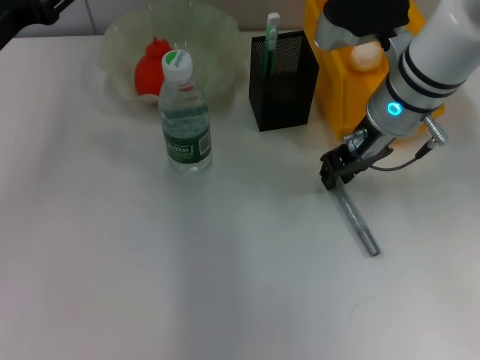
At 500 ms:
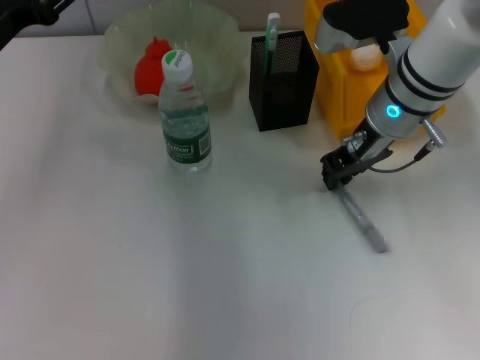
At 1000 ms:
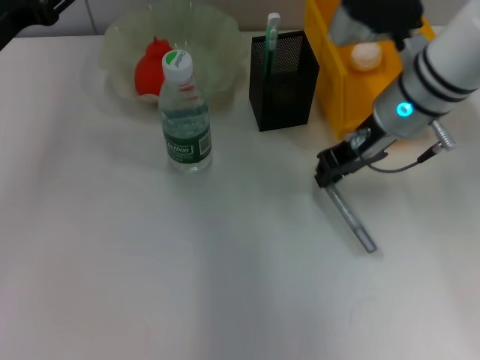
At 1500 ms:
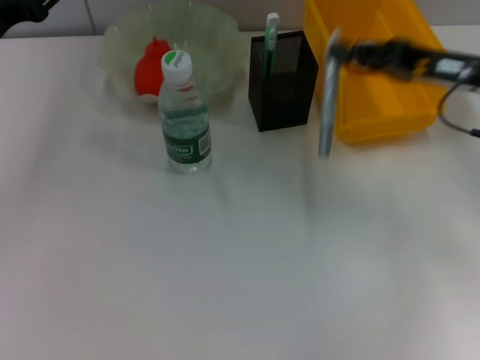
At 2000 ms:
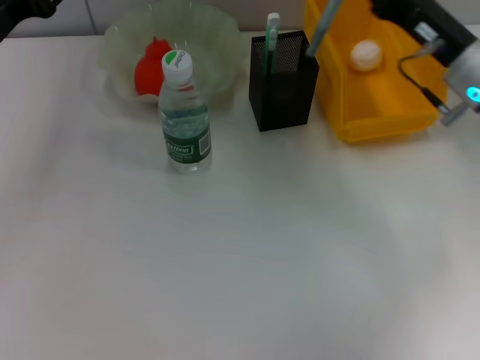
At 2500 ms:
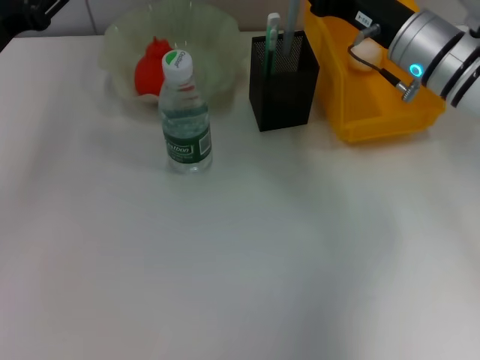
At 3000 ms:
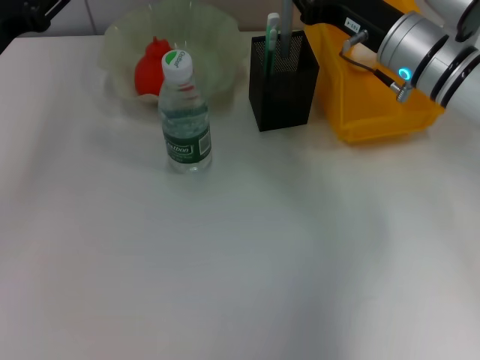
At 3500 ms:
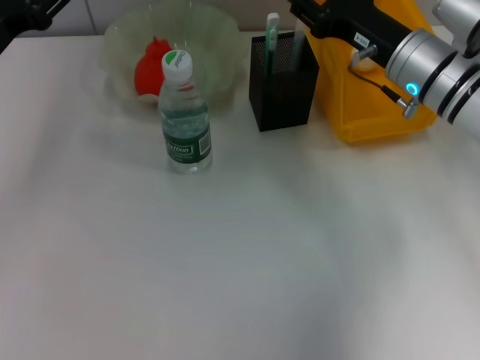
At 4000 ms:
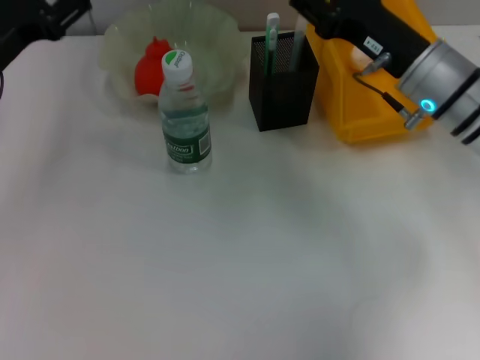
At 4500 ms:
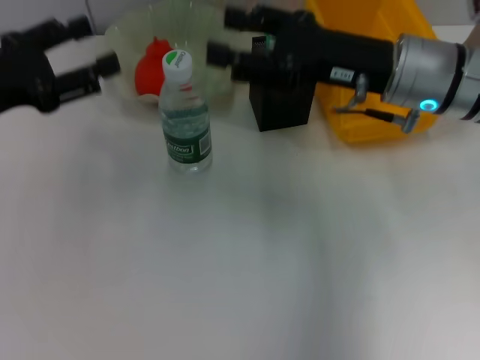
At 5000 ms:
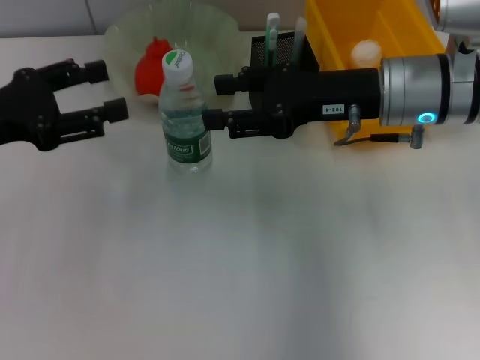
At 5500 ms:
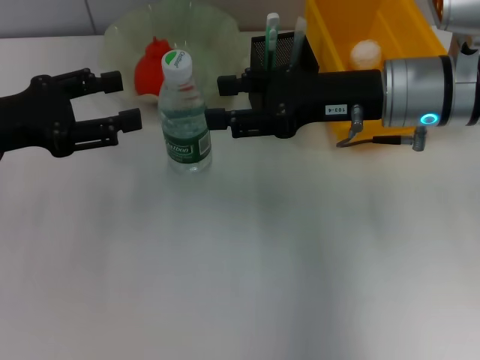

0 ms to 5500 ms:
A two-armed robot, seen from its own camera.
Step, 1000 ms to 3000 ms: Place the gray glue into the pen holder with the right hand.
0 ms to 2000 ms: The right gripper moves to the right, approximately 10 cm.
2000 ms to 3500 ms: The grippers stay close to where they were, moving slightly.
3500 ms to 5500 ms: The right gripper changes place by approximately 5 cm, and opens.

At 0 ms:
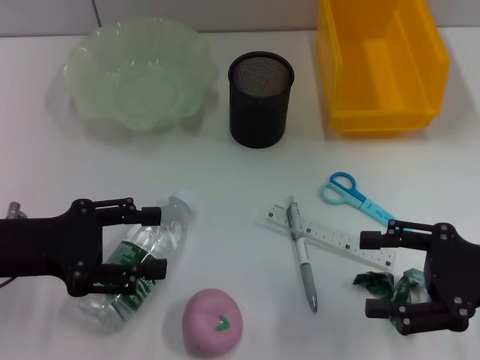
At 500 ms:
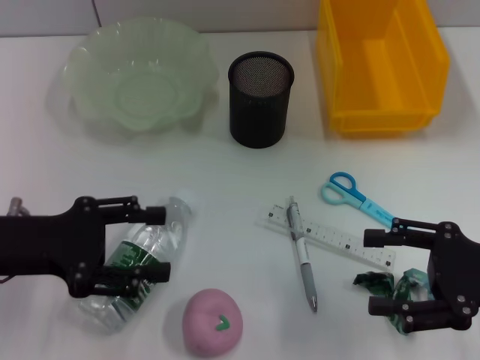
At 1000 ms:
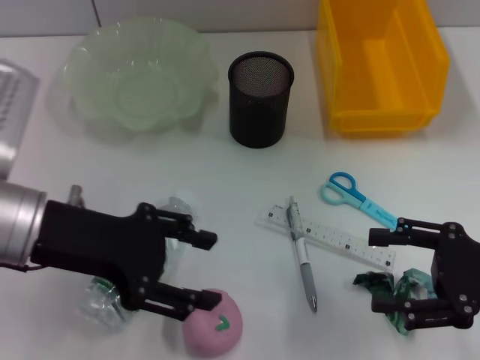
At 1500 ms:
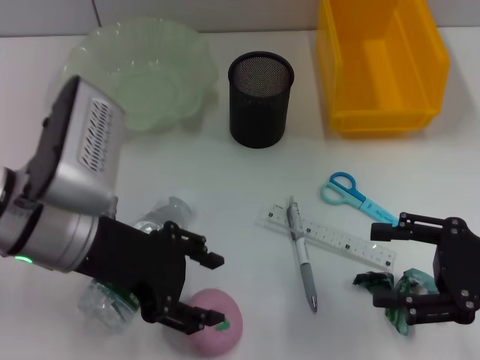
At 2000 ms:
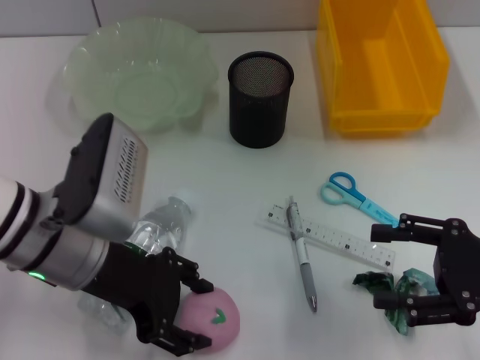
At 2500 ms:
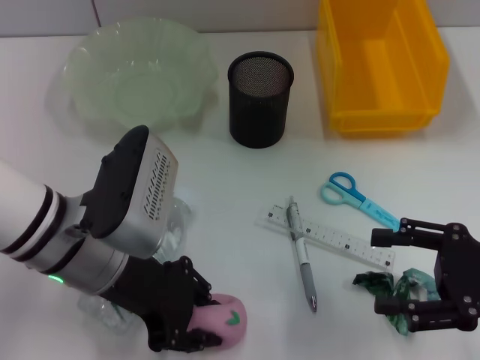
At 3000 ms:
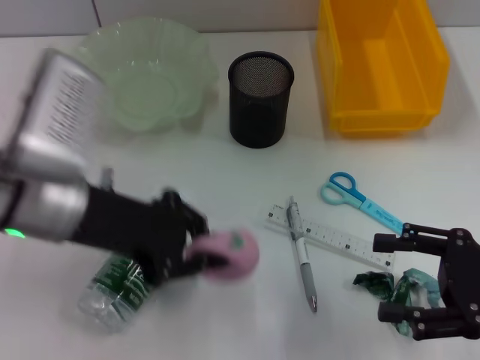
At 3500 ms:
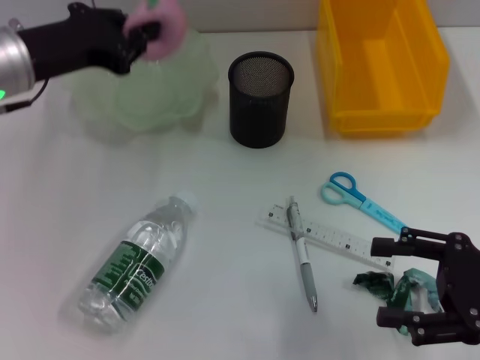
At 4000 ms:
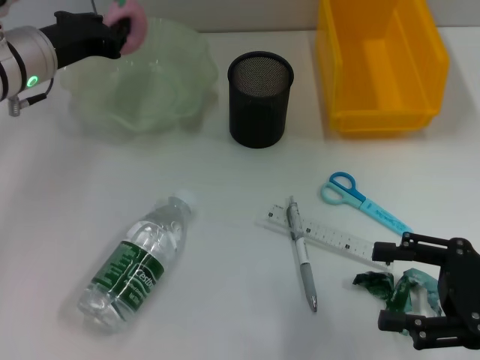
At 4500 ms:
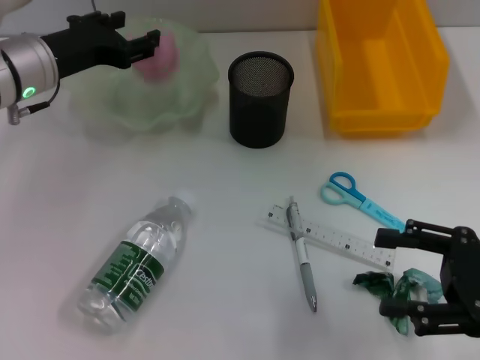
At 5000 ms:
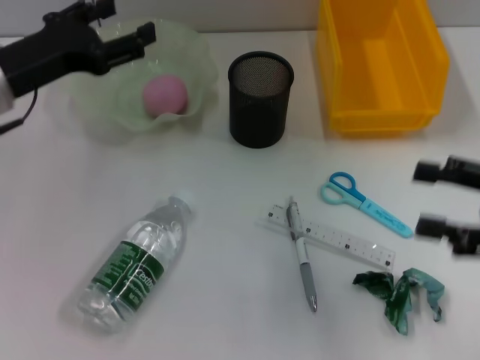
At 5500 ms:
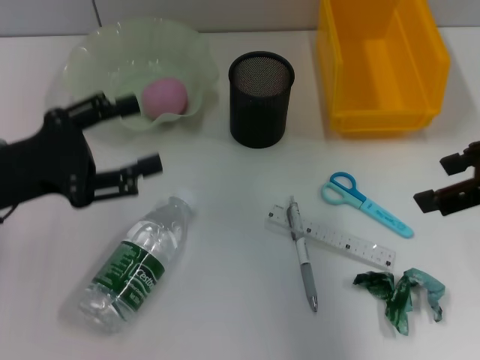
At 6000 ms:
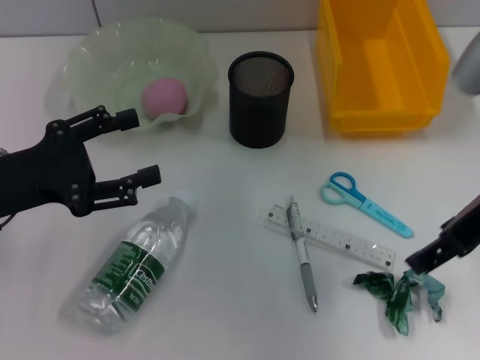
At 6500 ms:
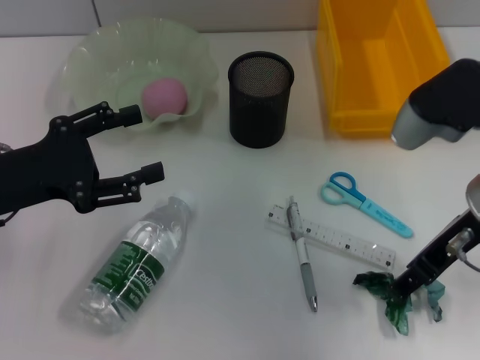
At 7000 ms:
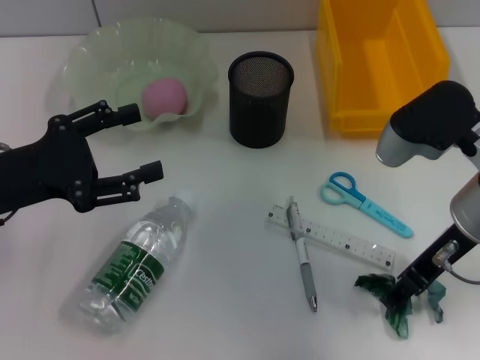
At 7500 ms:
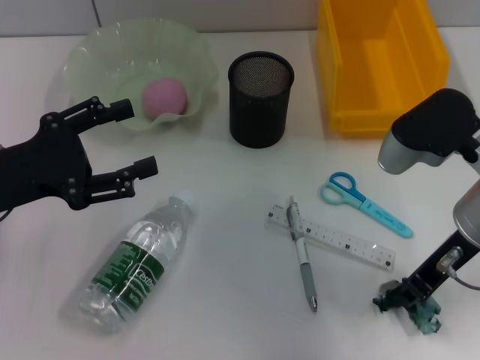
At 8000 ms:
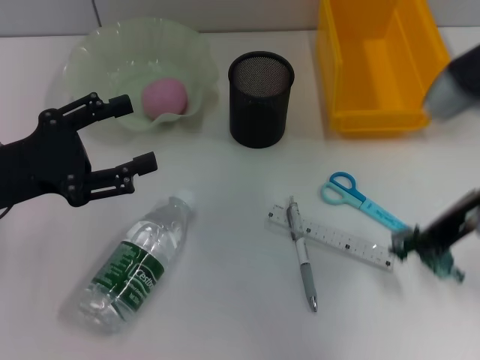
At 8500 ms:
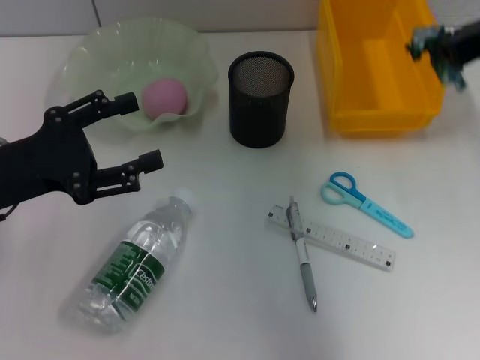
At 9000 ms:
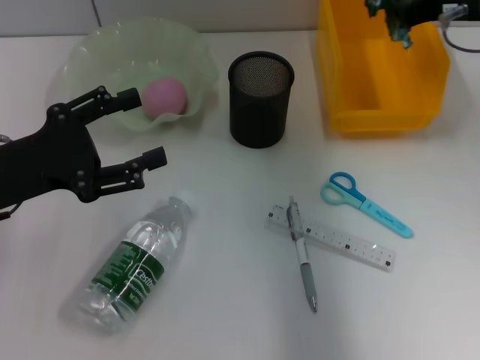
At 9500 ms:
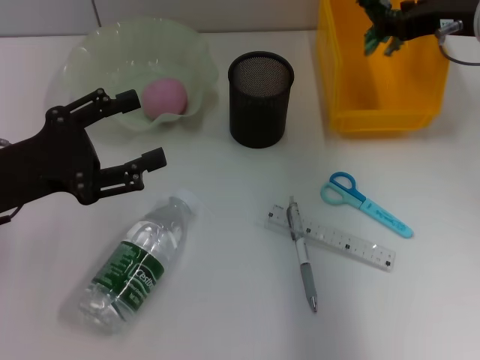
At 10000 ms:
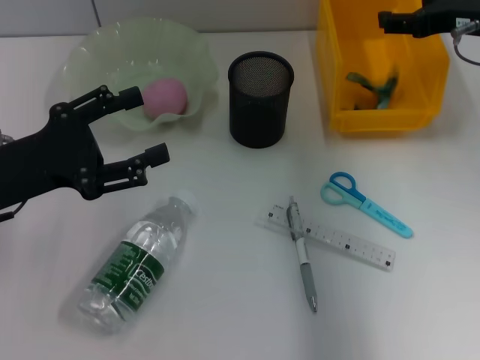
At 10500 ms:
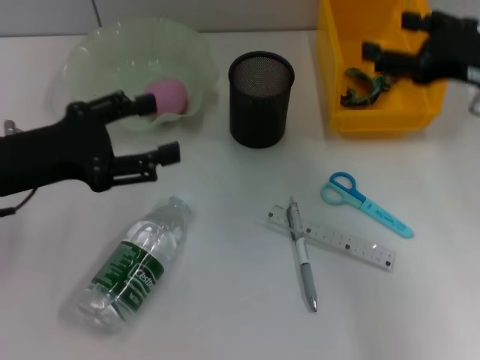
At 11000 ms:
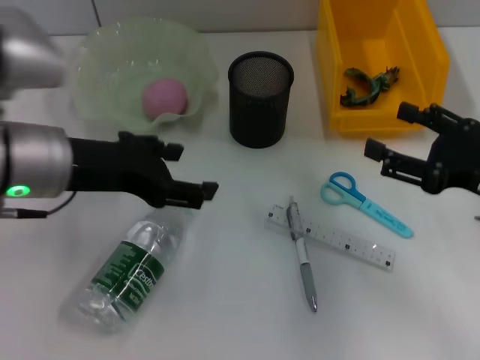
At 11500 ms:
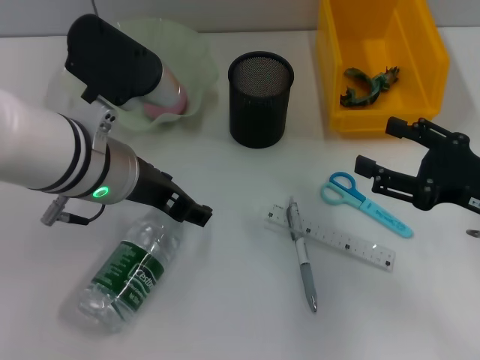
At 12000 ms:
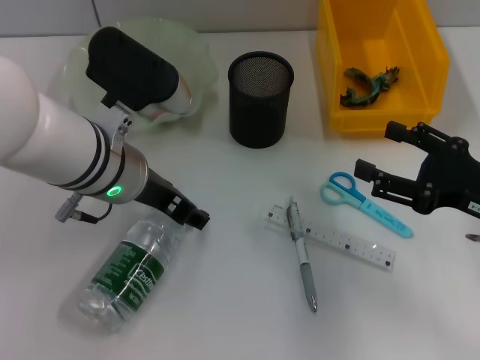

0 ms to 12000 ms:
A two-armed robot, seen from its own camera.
Step, 0 ms to 2000 ms: Grab the peach with the left hand.
Step, 2500 ms to 4500 ms: Place the peach into the fruit bowl with the left hand.
Step, 5000 ms to 7000 ms: Grab the plastic with the right hand.
Step, 7500 ms to 10000 ms: Place the plastic into the trash can with the right hand.
0 ms to 2000 ms: The left gripper is displaced to the right by about 10 cm.
2000 ms to 4000 ms: The left gripper travels forward and to the left by approximately 15 cm, and closes up.
4000 ms to 6000 ms: The right gripper heads upward, to the left and forward, covering about 20 cm; the left gripper shifts roughly 15 cm backward, and opens its fingers.
6000 ms to 8000 ms: The right gripper closes up.
8000 ms to 10000 ms: The right gripper goes approximately 10 cm forward, and opens its fingers.
10000 ms to 12000 ms: The right gripper shifts roughly 20 cm backward and downward; the left gripper travels to the right by roughly 15 cm.

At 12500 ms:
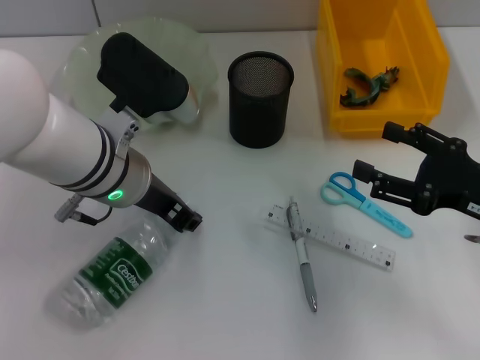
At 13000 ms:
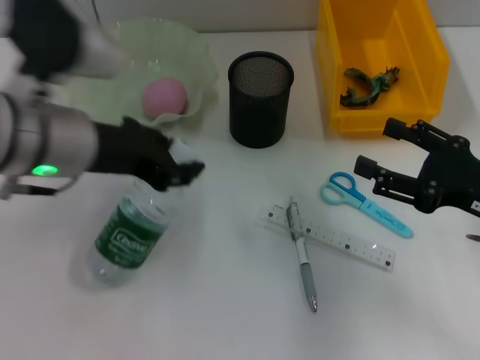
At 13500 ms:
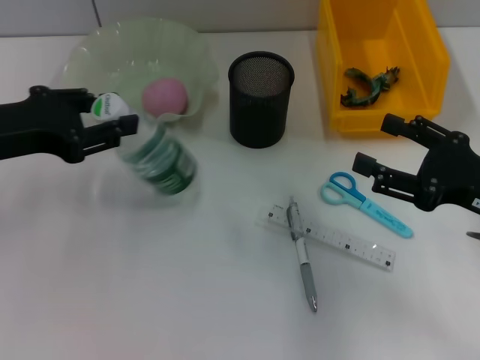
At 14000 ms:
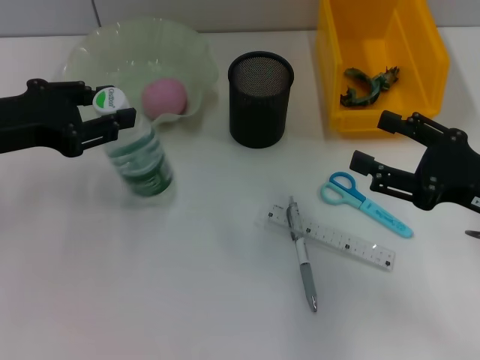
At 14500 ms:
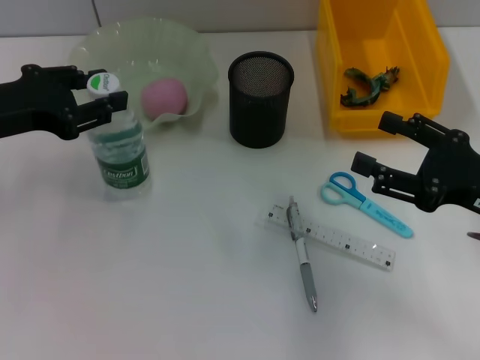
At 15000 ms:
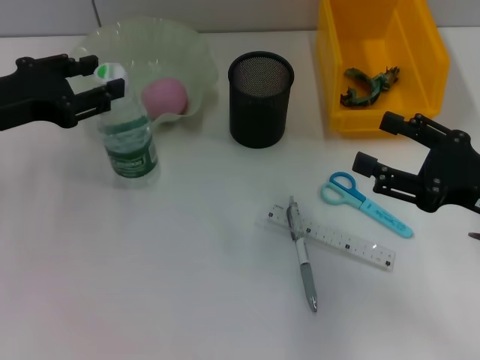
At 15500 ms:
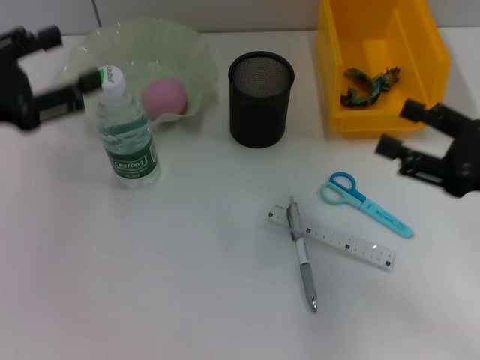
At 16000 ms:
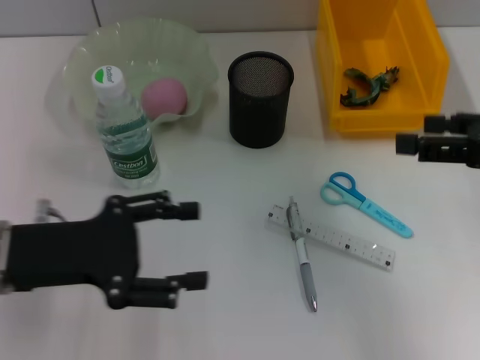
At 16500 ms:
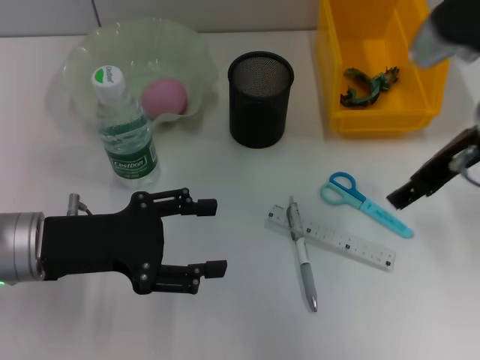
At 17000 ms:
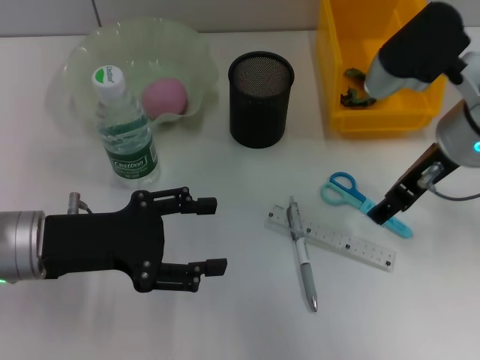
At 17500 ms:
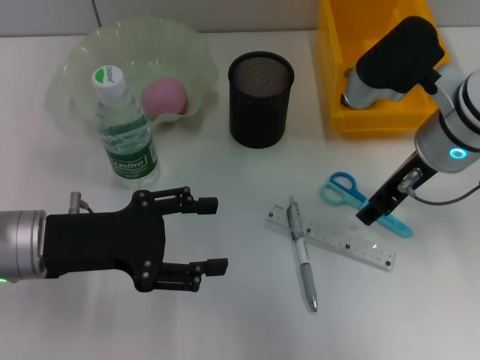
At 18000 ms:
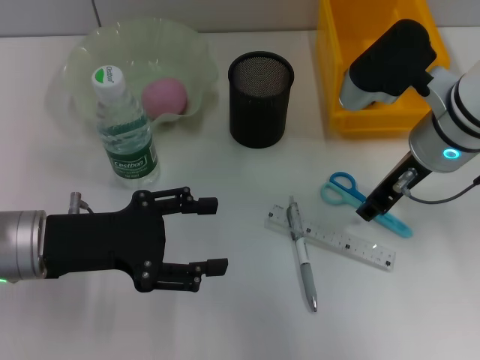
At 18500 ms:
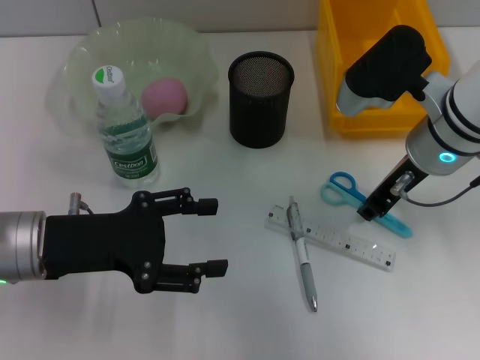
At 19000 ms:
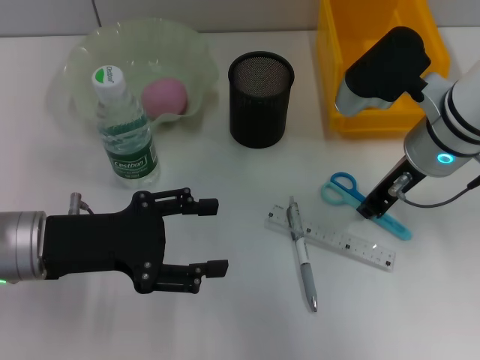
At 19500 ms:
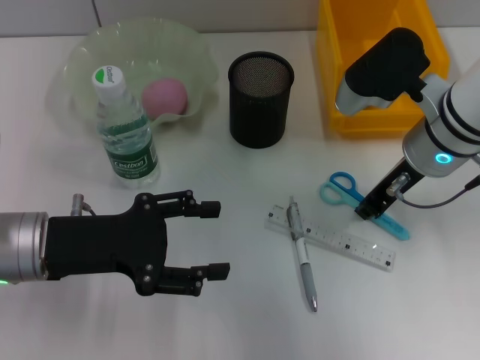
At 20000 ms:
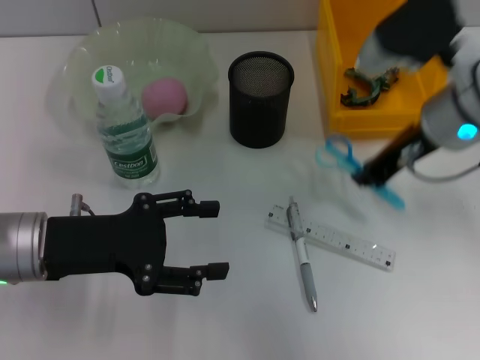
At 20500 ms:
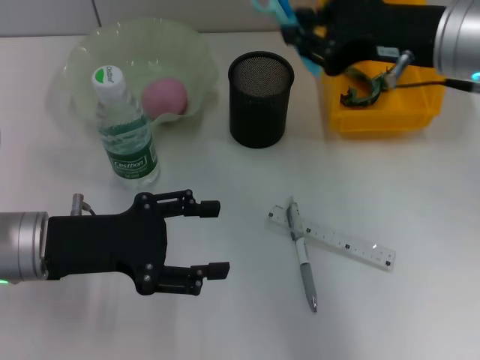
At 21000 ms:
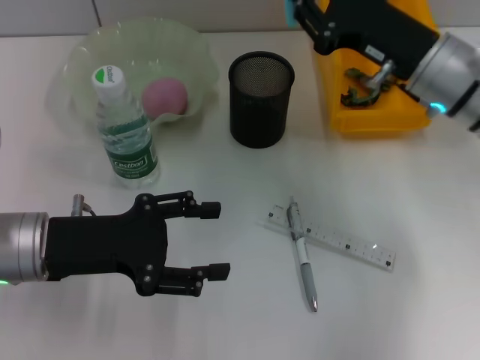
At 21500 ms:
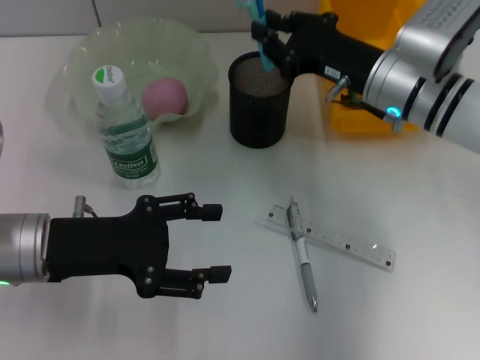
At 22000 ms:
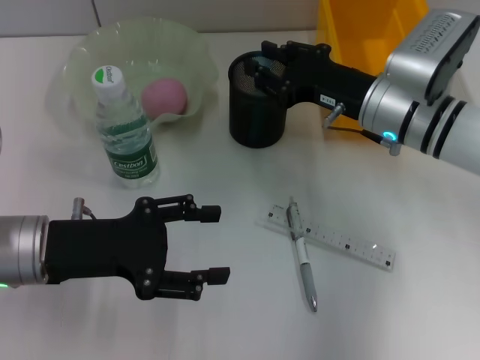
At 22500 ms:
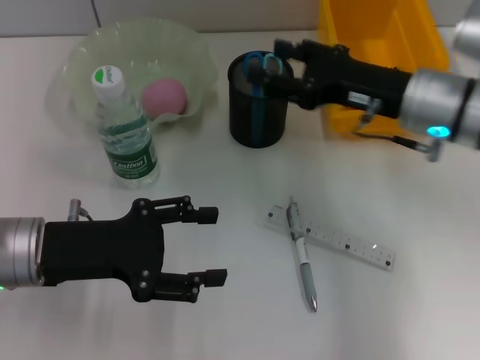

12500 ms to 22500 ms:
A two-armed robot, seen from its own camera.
Step, 12500 ms to 15000 ms: Place the water bottle on the table with the left hand.
Step, 15500 ms to 19500 ms: Grab the blue scissors with the right hand.
Step, 20000 ms to 22000 ms: Place the blue scissors into the pen holder with the right hand.
12500 ms to 14500 ms: The left gripper is displaced to the left by about 15 cm.
14500 ms to 16500 ms: The right gripper heads forward, upward and to the left, covering some 15 cm; the left gripper shifts about 10 cm downward and backward, and opens its fingers.
16500 ms to 18500 ms: The right gripper shifts approximately 5 cm downward, and closes its fingers.
18500 ms to 20500 ms: The right gripper shifts approximately 5 cm upward.
20500 ms to 22500 ms: The right gripper moves downward, approximately 5 cm, and opens its fingers.
